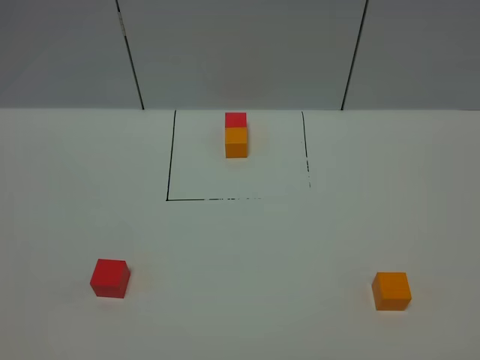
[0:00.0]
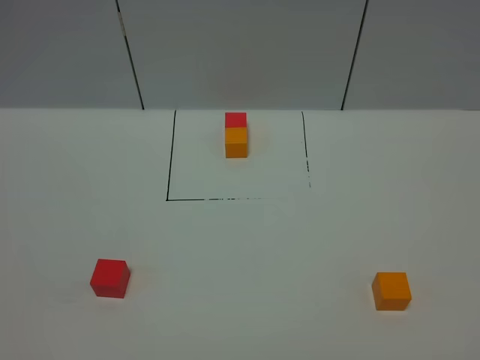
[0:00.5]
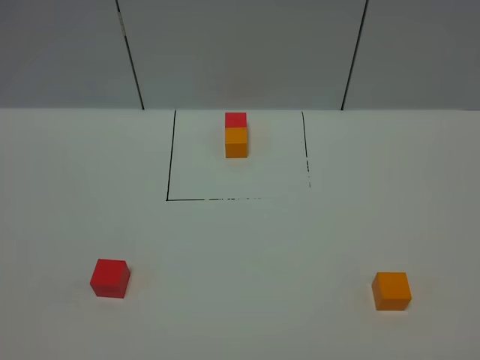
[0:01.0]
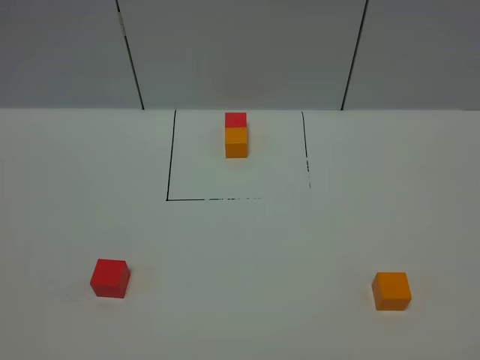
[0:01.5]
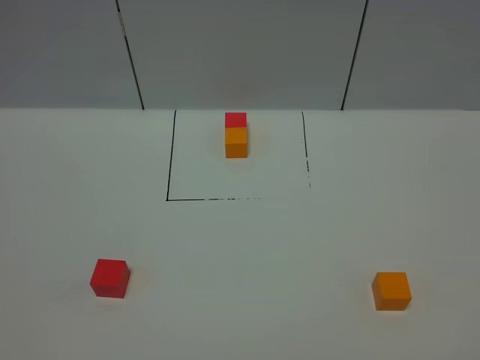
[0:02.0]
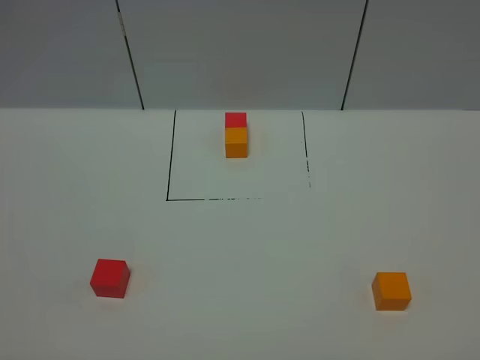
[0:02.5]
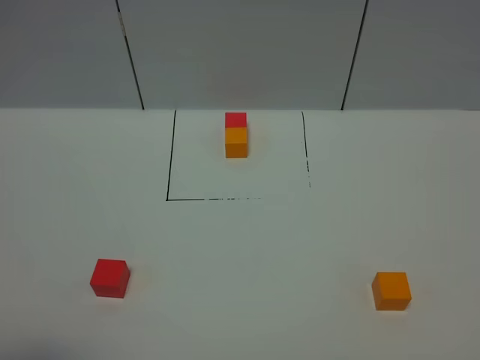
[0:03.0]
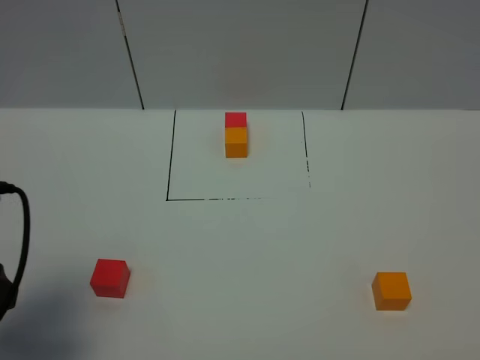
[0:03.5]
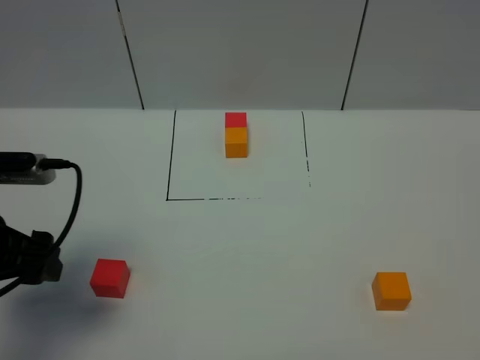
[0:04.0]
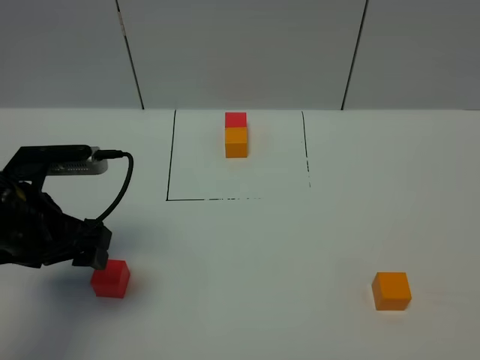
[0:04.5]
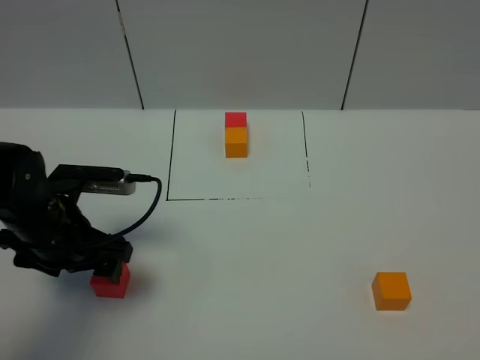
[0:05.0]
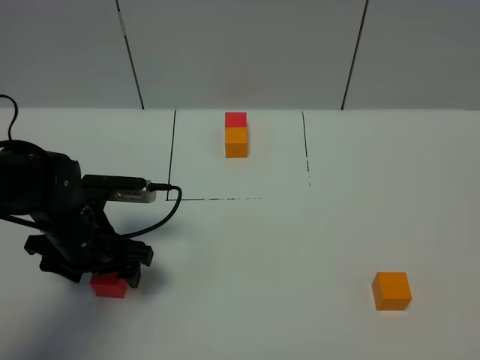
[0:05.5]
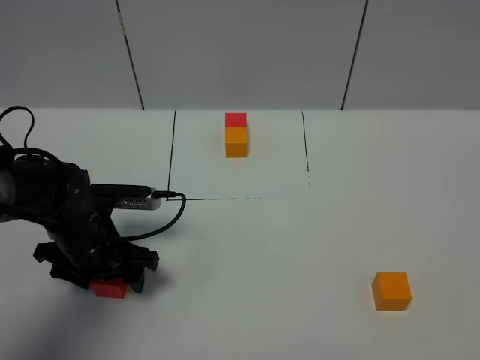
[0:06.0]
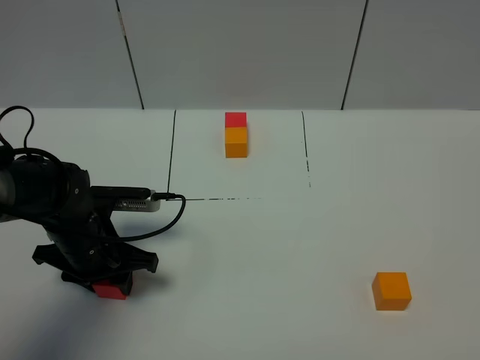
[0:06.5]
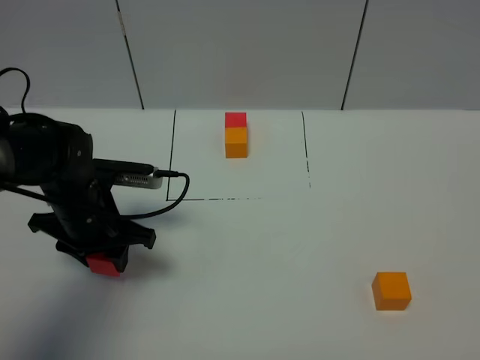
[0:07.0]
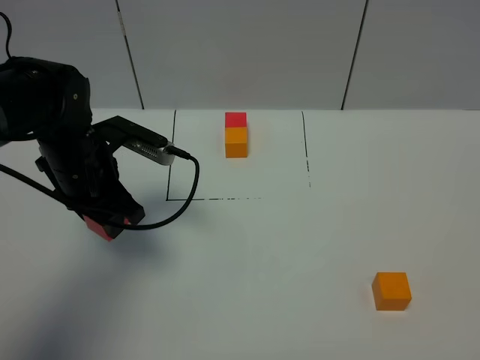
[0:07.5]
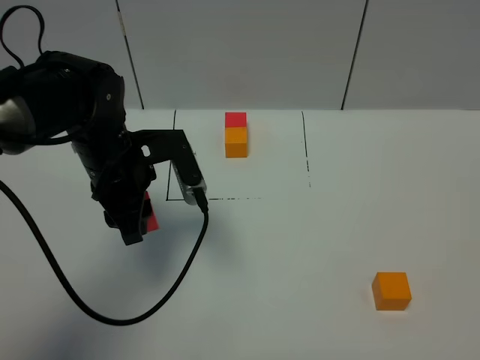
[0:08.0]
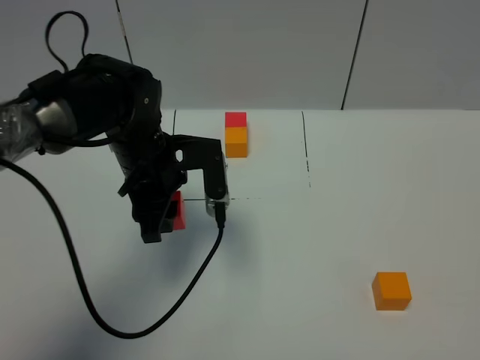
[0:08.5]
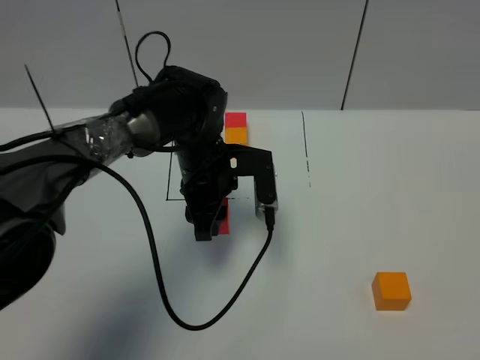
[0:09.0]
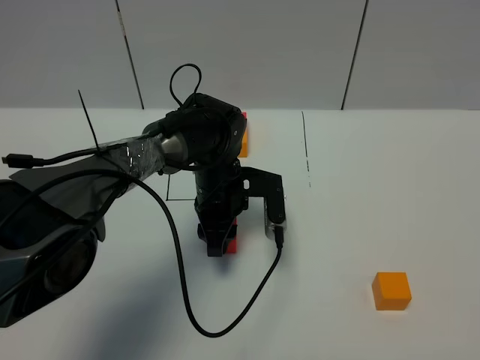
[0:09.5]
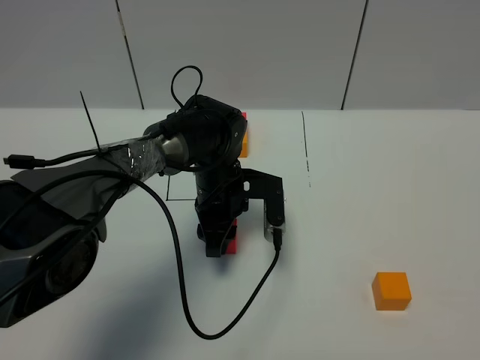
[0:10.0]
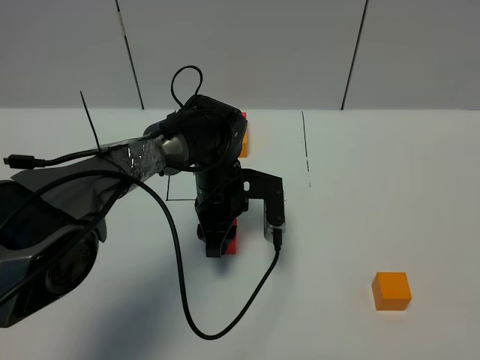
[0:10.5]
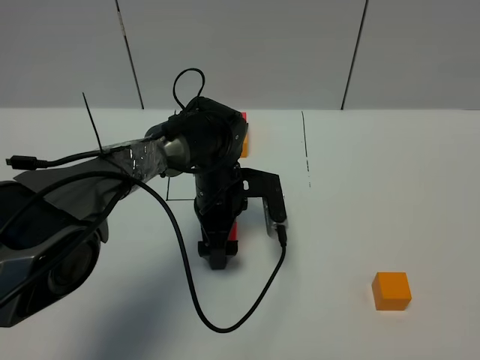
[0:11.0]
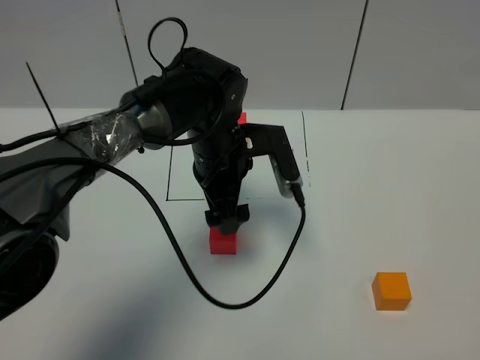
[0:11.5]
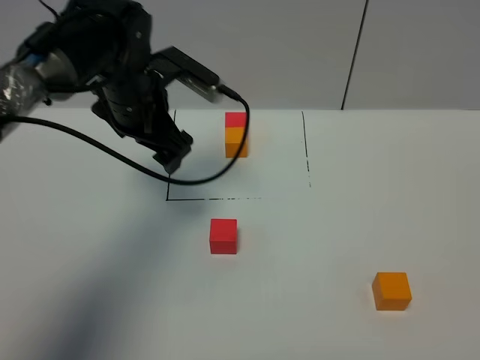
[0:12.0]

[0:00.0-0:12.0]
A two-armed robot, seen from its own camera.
Task of the whole recording: According to the building block template in front, assemble the scattered blocks together.
Step, 0:03.5 to 0:11.0: Put the orange cube in the center of the table.
0:00.0 to 0:02.0: Both grippers stay put.
0:02.0 to 0:04.0: The left gripper moves forward, roughly 25 cm.
0:04.0 to 0:06.0: The left gripper moves downward, forward and to the right, roughly 15 cm.
0:06.0 to 0:08.0: The left gripper goes about 10 cm upward and to the right, and closes its fingers.
0:08.0 to 0:10.0: The left gripper moves to the right and downward, approximately 15 cm.
0:10.0 to 0:12.0: The left gripper is displaced upward and to the left by approximately 20 cm, and opens.

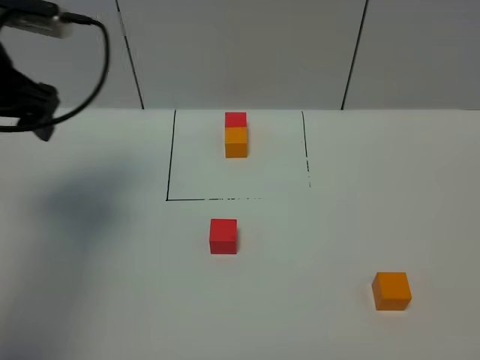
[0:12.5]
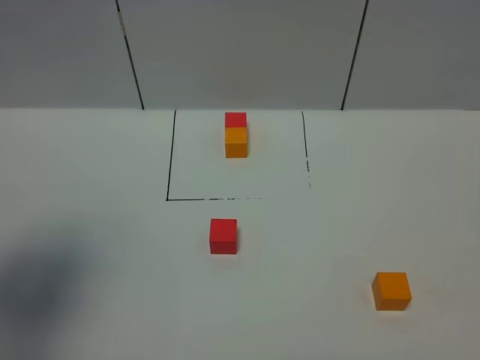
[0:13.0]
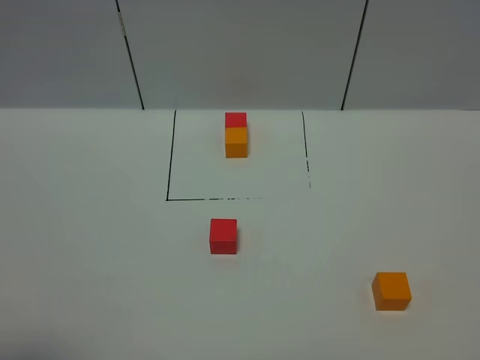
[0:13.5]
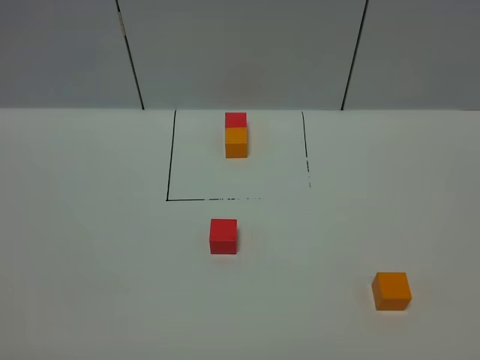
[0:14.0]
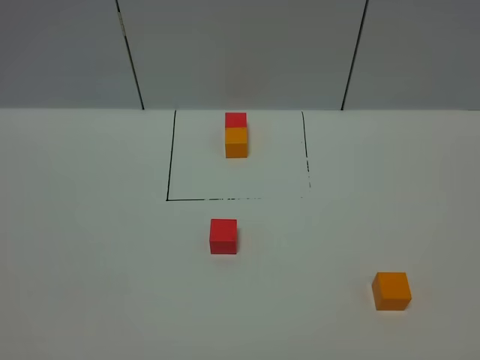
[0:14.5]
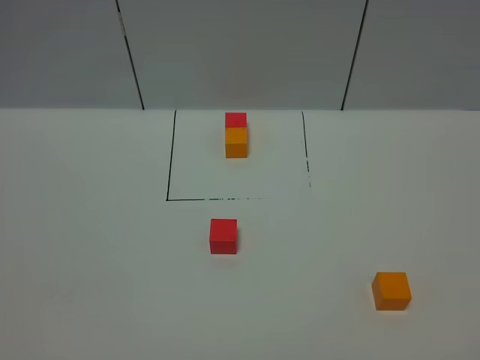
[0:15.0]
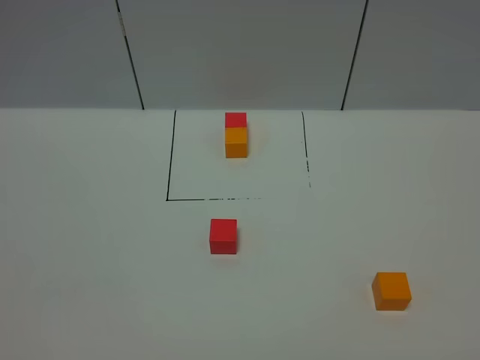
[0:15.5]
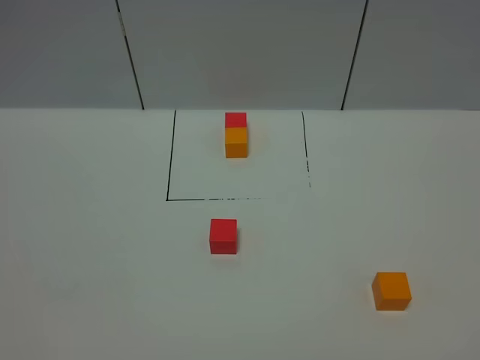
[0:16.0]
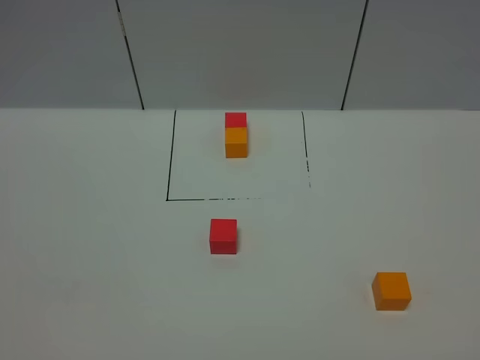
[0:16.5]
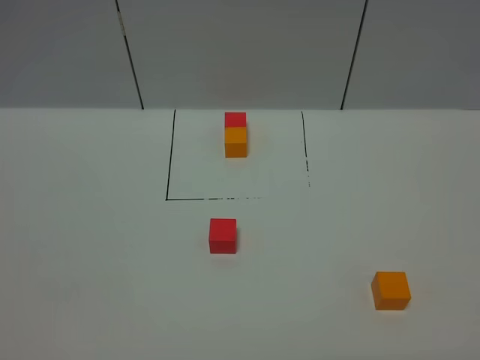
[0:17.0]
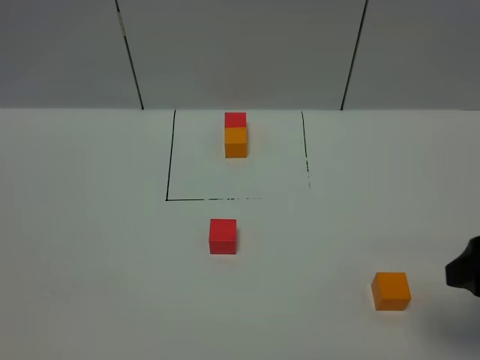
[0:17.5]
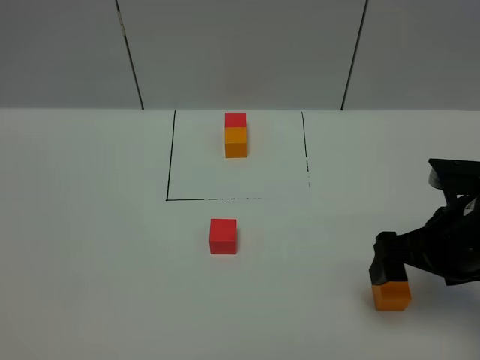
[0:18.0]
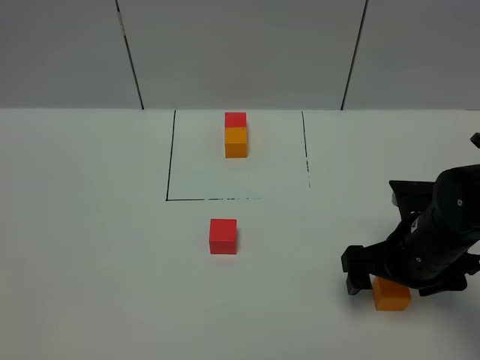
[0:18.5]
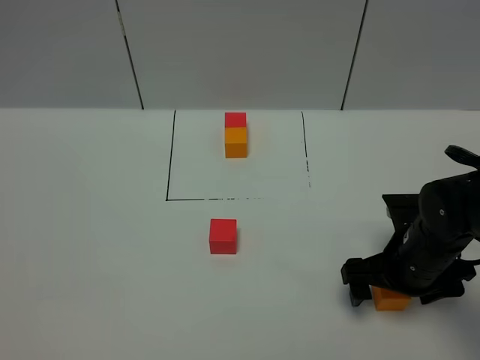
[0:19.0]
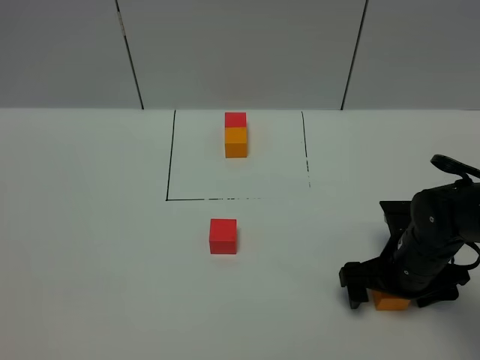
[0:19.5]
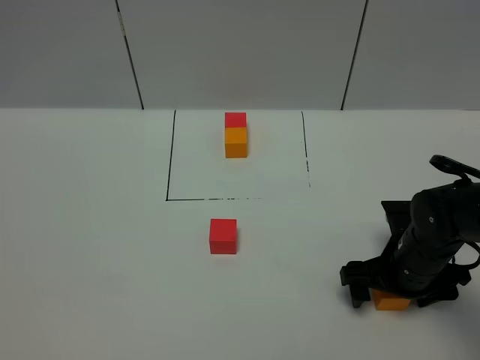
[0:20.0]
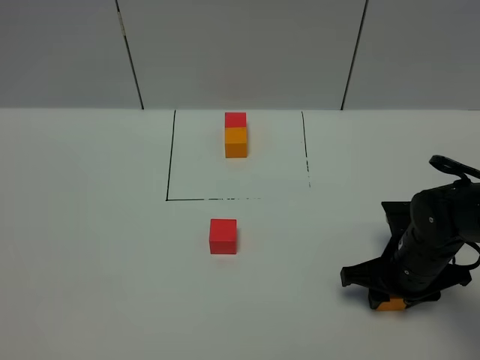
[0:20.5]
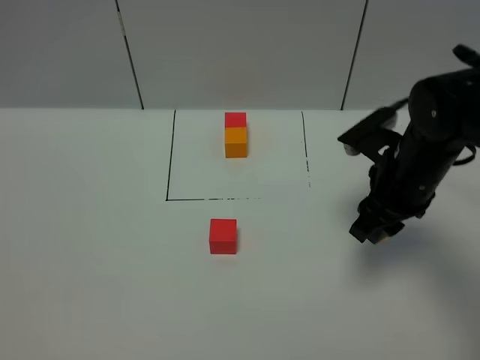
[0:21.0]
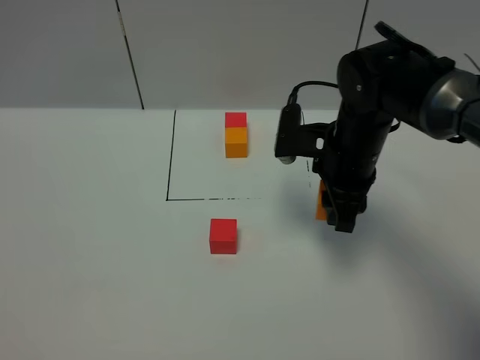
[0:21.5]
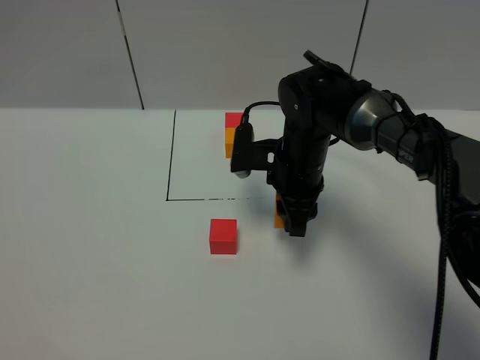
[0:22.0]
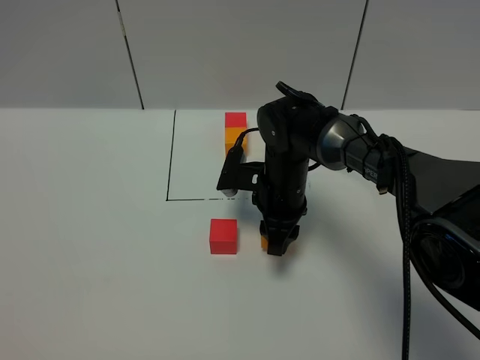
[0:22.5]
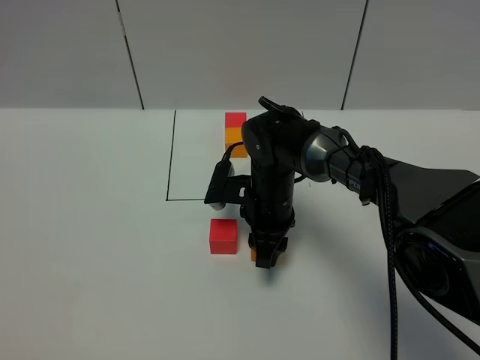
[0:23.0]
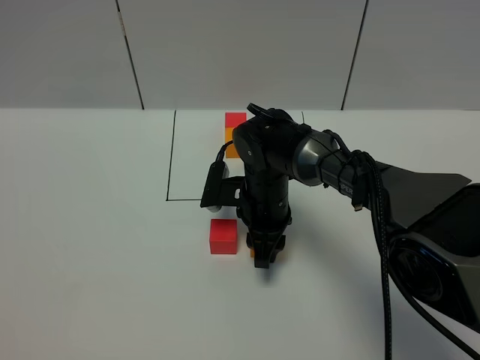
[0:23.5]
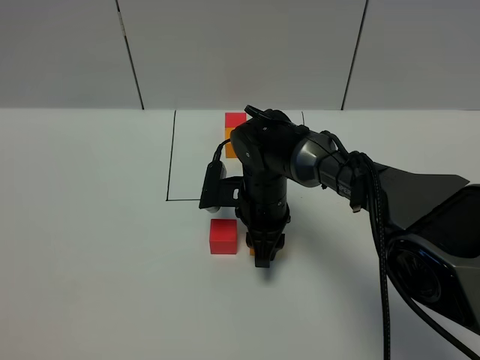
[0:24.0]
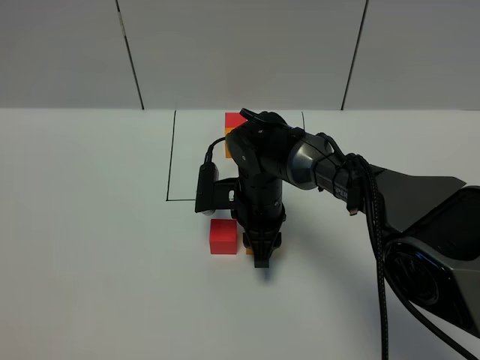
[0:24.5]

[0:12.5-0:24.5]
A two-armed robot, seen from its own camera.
Task of the whole recording: According to the building block template in front, assemble the scattered blocks together.
0:12.5 to 0:14.5: The left gripper goes approximately 35 cm backward.
0:16.5 to 0:18.5: The right gripper travels forward and downward by about 30 cm.
0:18.5 to 0:20.5: The right gripper goes approximately 5 cm downward, and closes its fingers.
0:20.5 to 0:22.5: The right gripper is displaced to the left and forward by about 20 cm.
0:22.5 to 0:24.5: The grippers stay close to where they were, moving slightly.

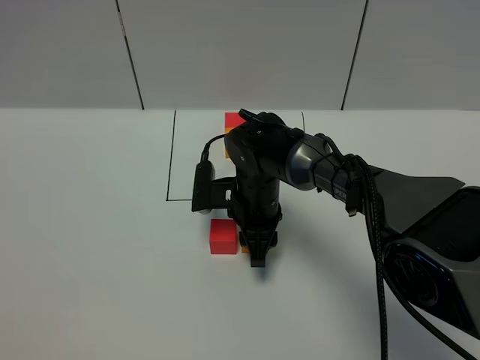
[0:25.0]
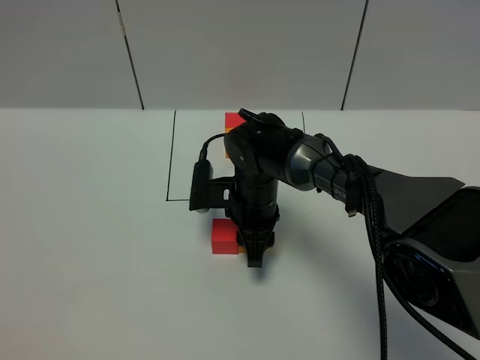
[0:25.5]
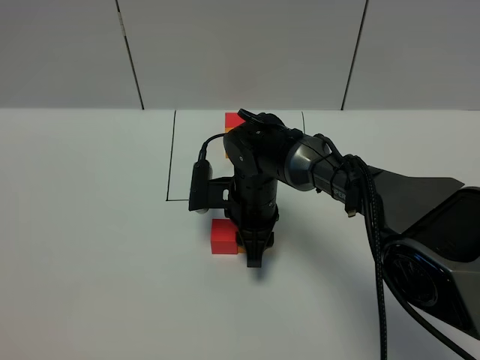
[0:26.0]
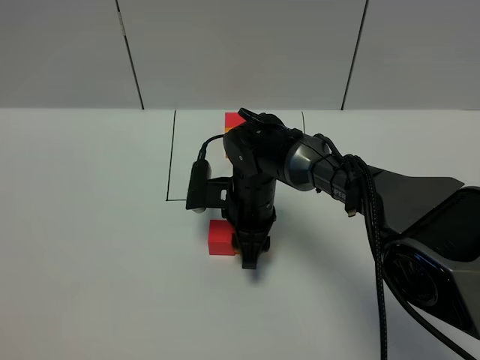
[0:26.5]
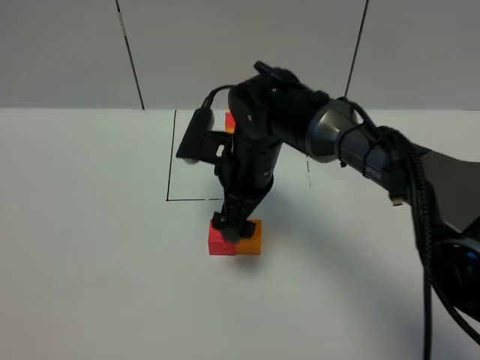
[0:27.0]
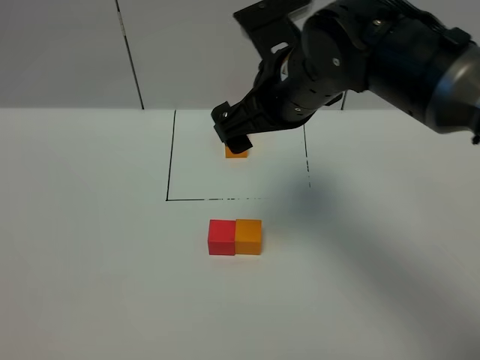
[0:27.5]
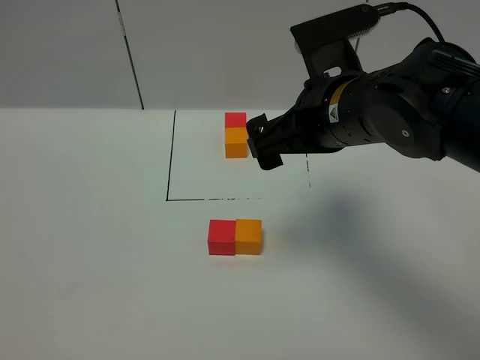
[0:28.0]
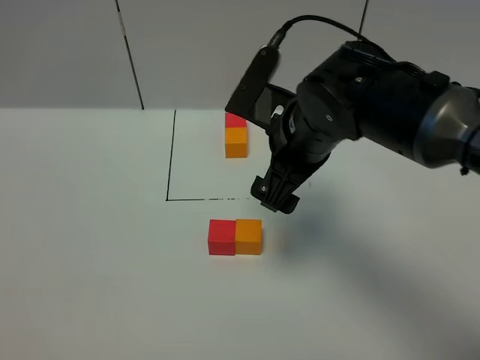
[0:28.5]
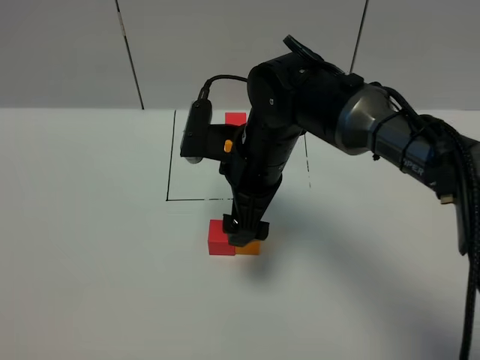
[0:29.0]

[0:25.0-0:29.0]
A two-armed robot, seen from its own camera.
Task of the whole recording: According to the building block template in front, assemble the scattered blocks together.
0:25.0 to 0:27.0: The right gripper heads upward, covering some 10 cm, and opens.
0:27.0 to 0:29.0: The right gripper travels upward and back again, approximately 10 cm each way.
